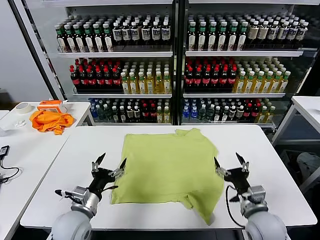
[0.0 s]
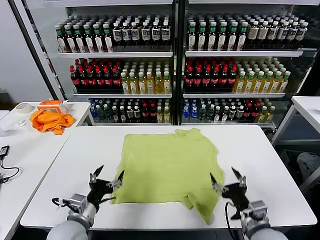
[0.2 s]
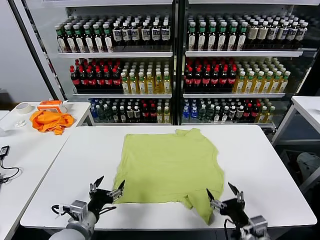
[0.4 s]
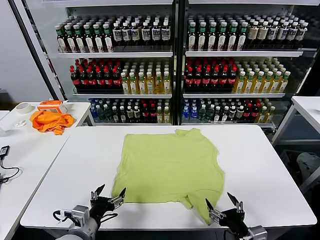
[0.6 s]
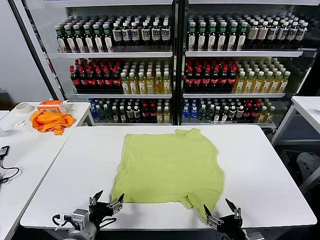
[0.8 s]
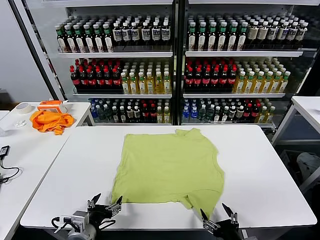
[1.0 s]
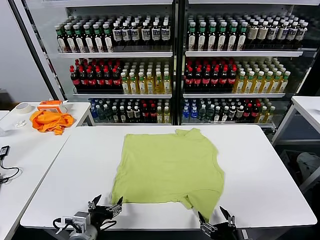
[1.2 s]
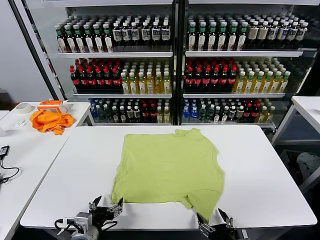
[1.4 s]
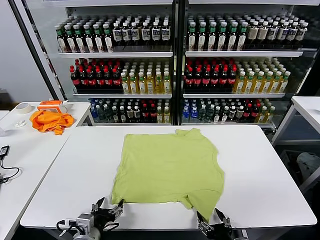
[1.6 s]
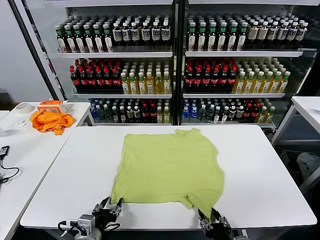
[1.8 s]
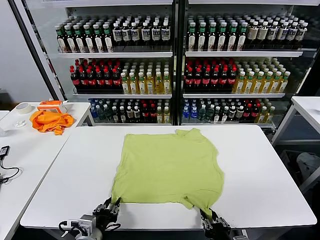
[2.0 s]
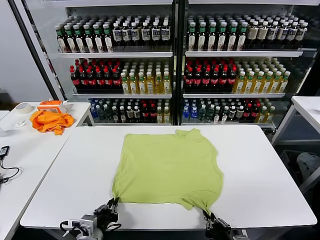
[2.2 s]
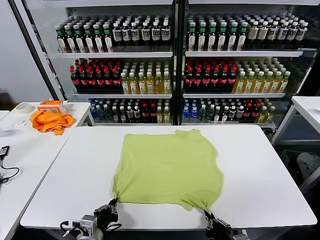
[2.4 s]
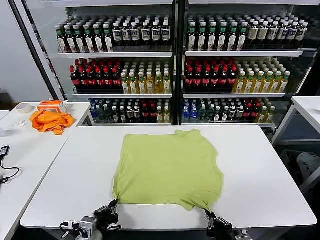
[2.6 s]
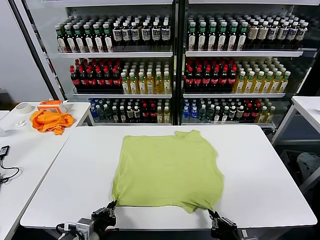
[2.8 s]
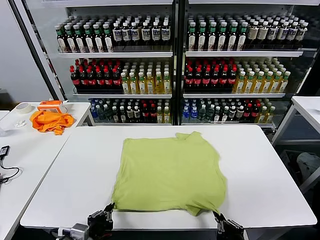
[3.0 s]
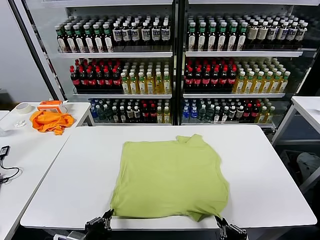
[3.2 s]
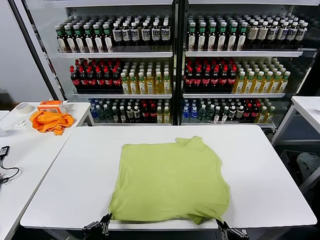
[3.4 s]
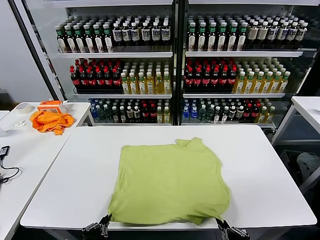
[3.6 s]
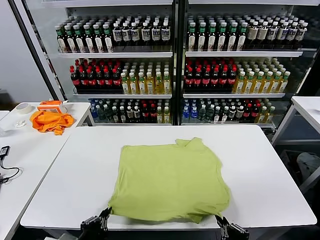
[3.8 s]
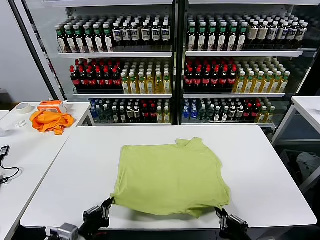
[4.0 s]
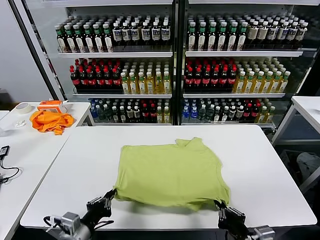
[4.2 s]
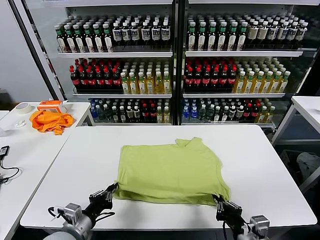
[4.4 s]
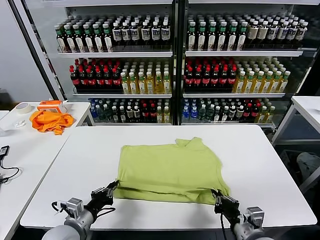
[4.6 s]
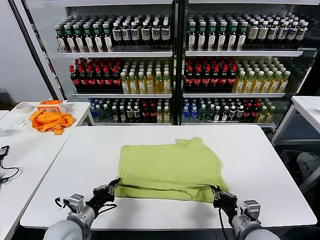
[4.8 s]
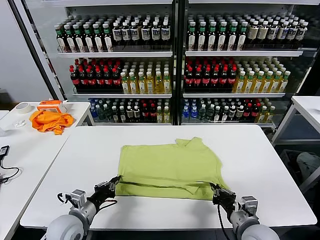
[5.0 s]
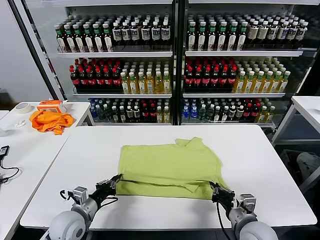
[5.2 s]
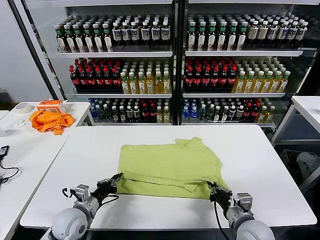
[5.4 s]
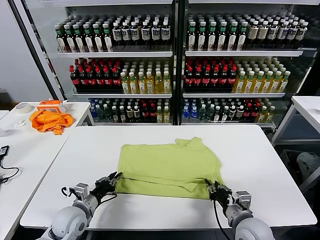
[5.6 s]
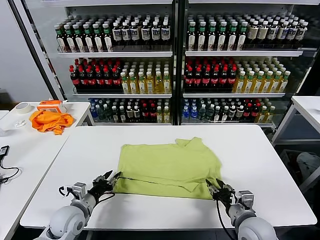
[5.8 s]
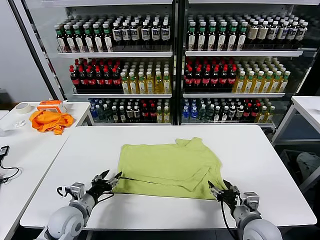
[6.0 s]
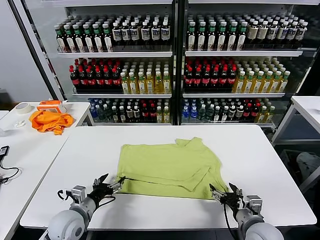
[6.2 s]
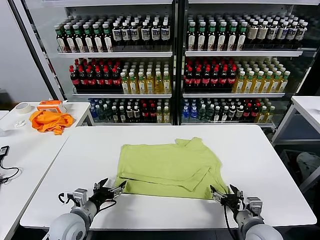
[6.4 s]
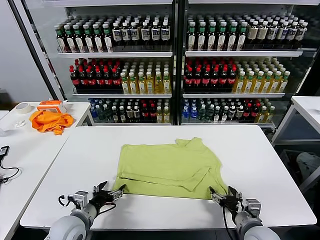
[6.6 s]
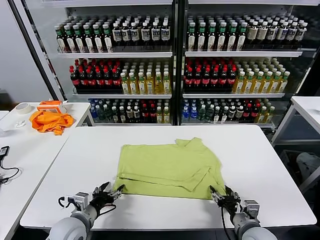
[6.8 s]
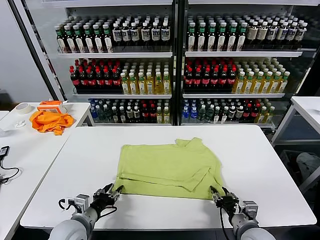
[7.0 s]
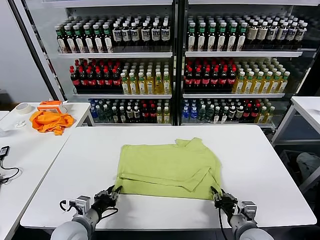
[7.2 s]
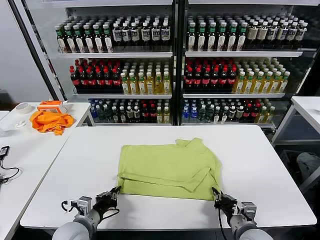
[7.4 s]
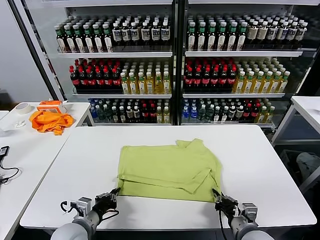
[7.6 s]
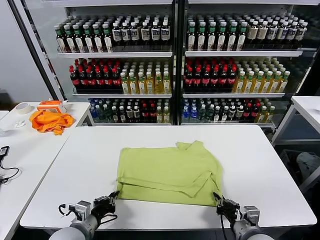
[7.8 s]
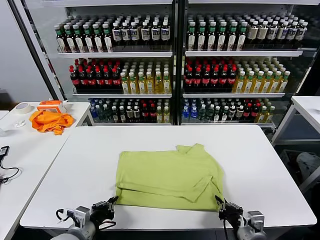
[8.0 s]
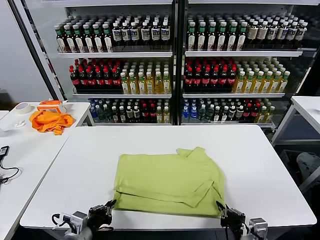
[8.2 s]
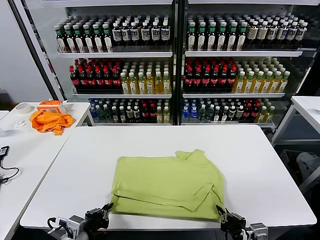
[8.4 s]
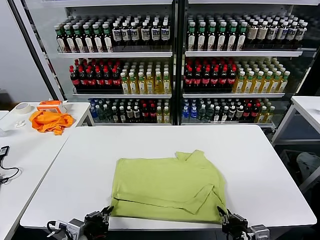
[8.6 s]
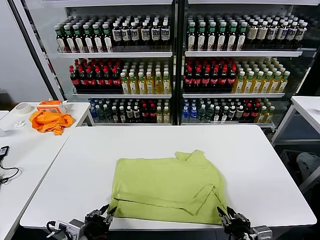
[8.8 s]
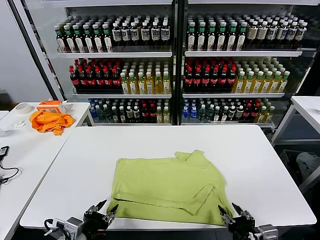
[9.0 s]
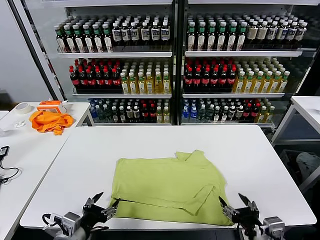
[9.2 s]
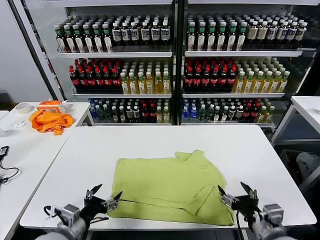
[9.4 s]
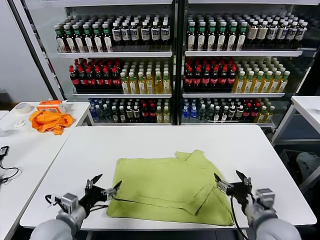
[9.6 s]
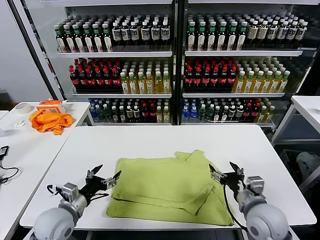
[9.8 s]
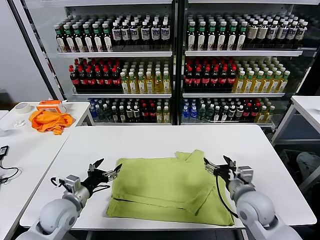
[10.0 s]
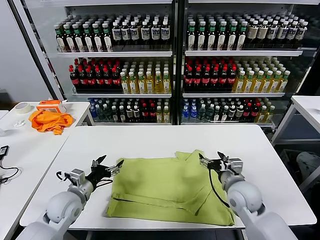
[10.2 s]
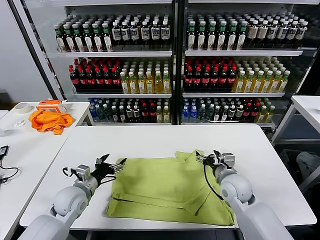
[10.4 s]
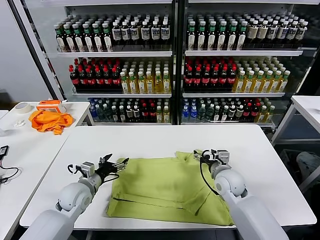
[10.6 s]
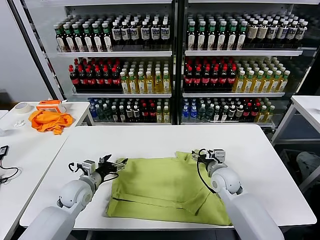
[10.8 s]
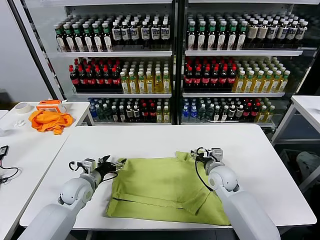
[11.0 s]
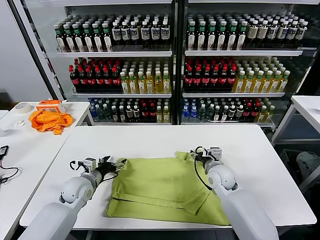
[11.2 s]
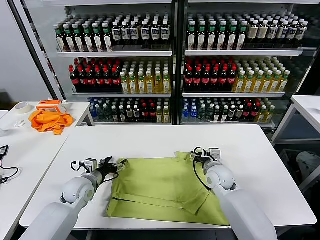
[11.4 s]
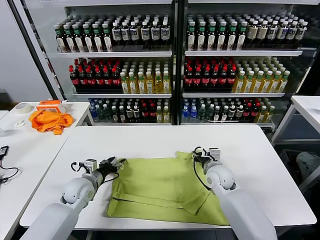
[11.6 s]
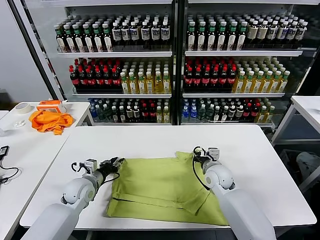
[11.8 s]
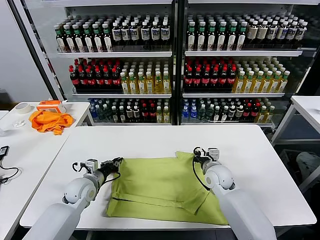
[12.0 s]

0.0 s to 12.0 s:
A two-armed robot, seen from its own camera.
Task of the whole recording: fold and organize the clothes.
Step, 0.0 to 2.4 s: use both grippers simultaneously to clamp the lower edge of the clothing fabric.
Step, 2.6 to 5.8 s: use both grippers to drag the lower edge of the fabric forward and fold it over the upper edge.
Step, 6.0 to 8.8 s: Drag the clothes downward with both gripper.
Step, 9.0 to 12.0 s: use both grippers simultaneously to clamp the upper edge of the clothing fabric.
1.6 to 3.0 s: The left gripper closes. The right gripper shifts some 5 cm upward, and closes up.
3.0 to 4.4 s: The grippers both shift forward by some 10 cm.
4.4 to 6.0 s: Both grippers travel together forward, approximately 5 cm. The left gripper opens its fingers. The right gripper opens its fingers.
6.0 to 7.6 s: The left gripper is displaced backward by about 5 cm, and closes. The right gripper closes its fingers.
7.6 to 9.0 s: The two grippers go about 10 cm backward and upward. The right gripper opens up. The left gripper opens its fingers.
9.0 to 10.4 s: Both grippers move forward, some 20 cm. The left gripper opens up.
10.4 to 12.0 s: The left gripper closes its fingers, while the right gripper ends up roughly 5 cm from where it was, and closes up.

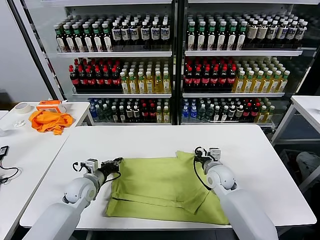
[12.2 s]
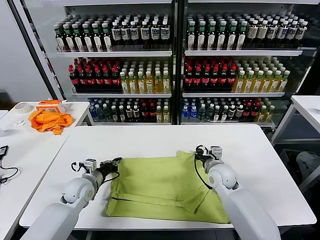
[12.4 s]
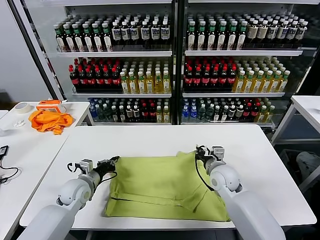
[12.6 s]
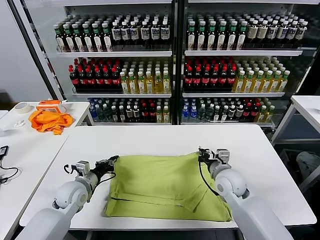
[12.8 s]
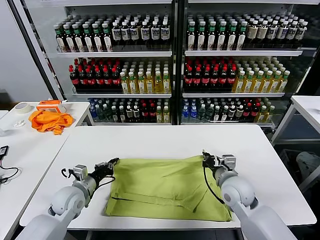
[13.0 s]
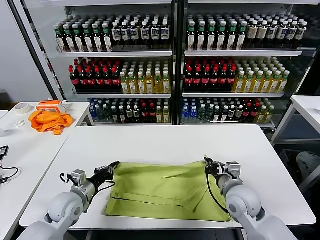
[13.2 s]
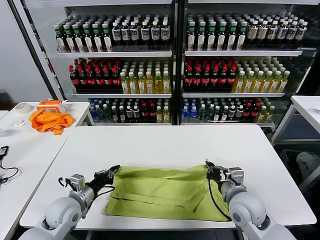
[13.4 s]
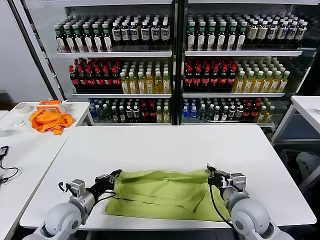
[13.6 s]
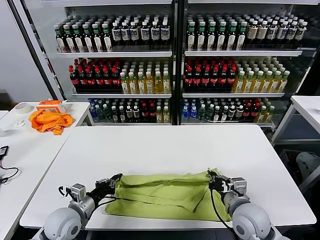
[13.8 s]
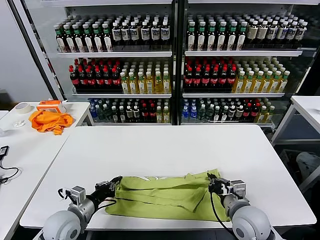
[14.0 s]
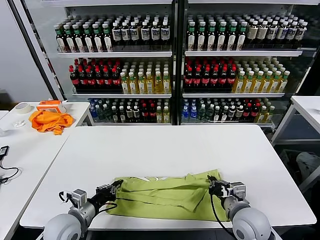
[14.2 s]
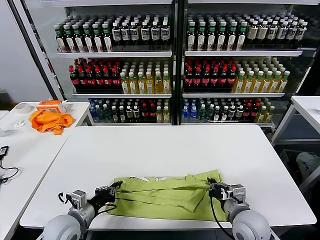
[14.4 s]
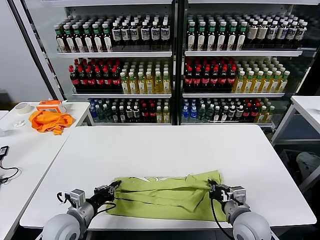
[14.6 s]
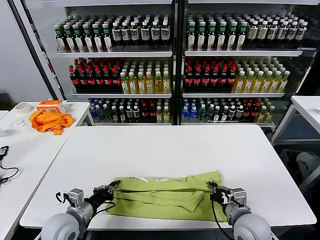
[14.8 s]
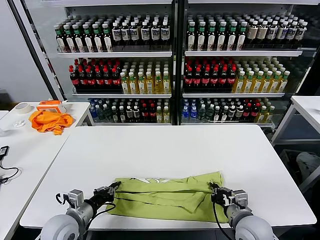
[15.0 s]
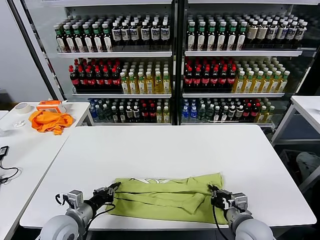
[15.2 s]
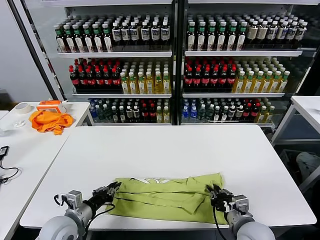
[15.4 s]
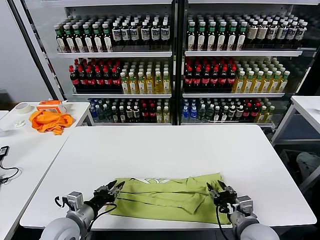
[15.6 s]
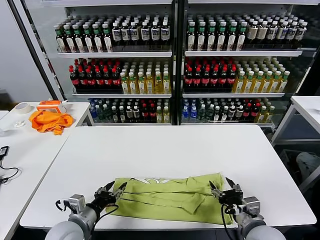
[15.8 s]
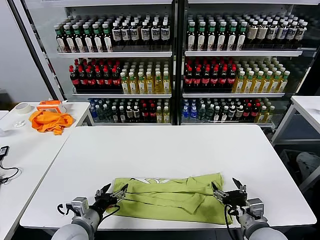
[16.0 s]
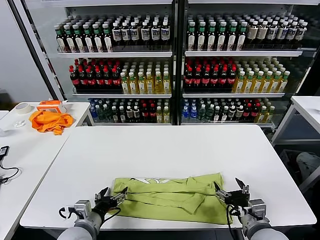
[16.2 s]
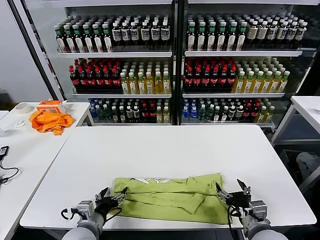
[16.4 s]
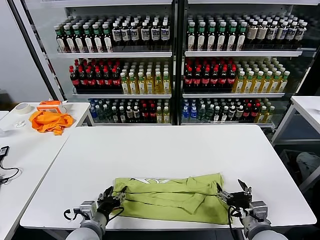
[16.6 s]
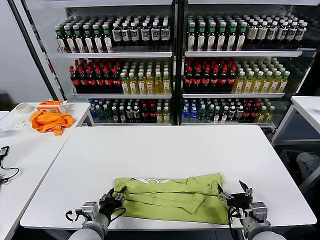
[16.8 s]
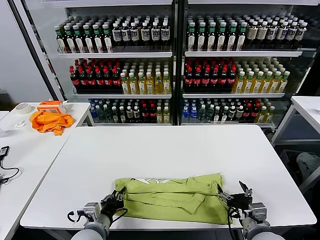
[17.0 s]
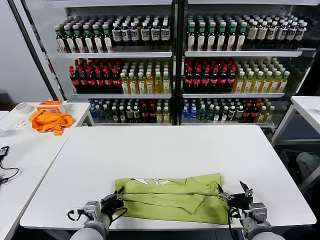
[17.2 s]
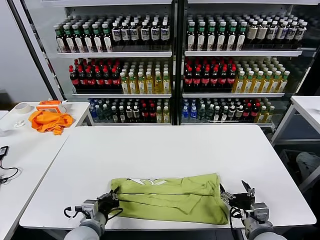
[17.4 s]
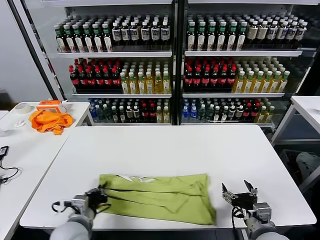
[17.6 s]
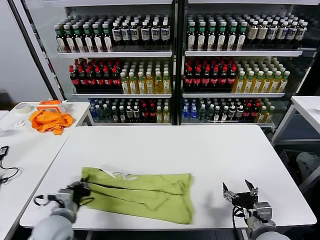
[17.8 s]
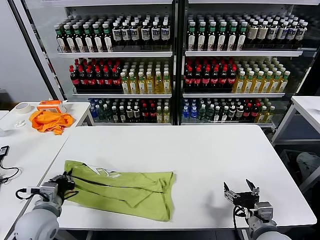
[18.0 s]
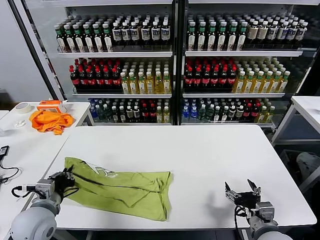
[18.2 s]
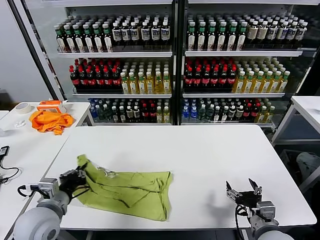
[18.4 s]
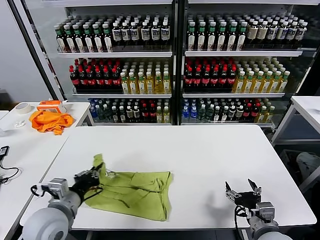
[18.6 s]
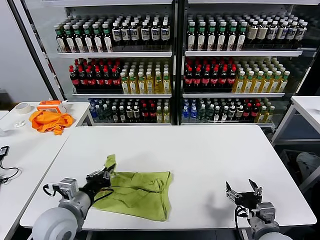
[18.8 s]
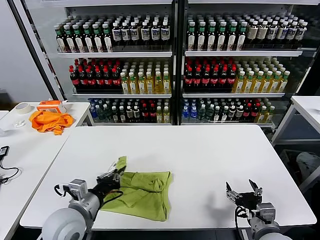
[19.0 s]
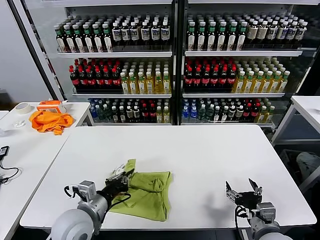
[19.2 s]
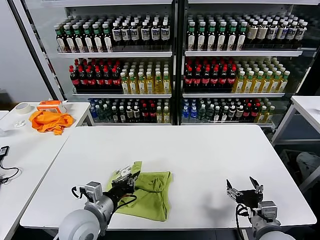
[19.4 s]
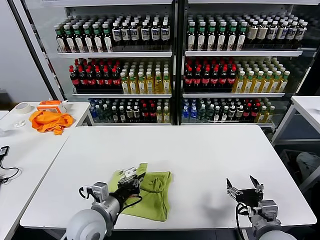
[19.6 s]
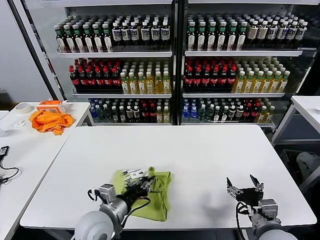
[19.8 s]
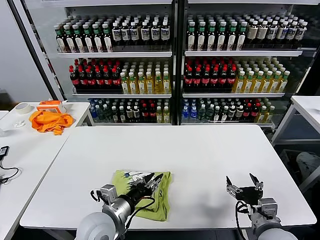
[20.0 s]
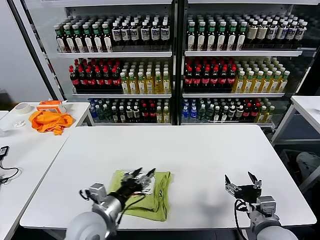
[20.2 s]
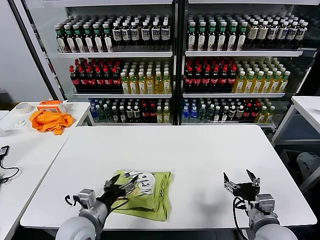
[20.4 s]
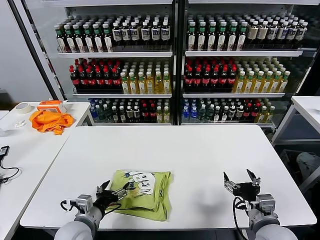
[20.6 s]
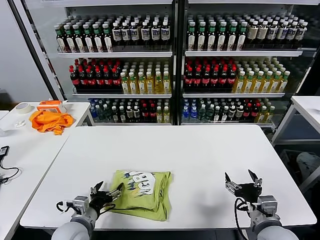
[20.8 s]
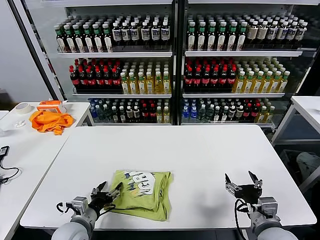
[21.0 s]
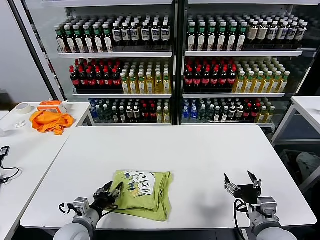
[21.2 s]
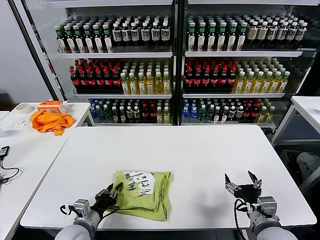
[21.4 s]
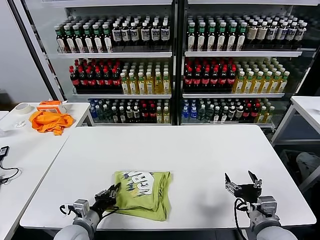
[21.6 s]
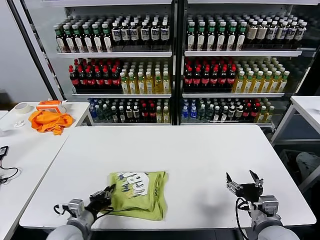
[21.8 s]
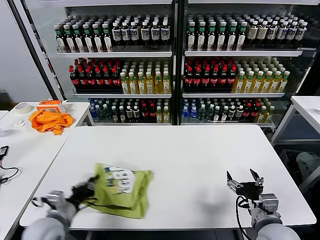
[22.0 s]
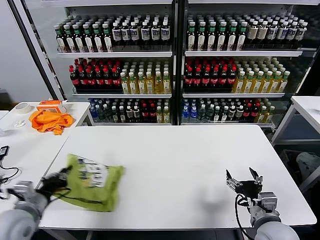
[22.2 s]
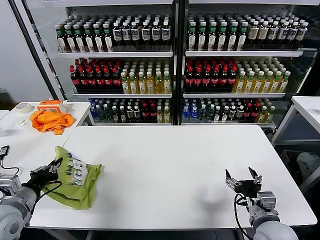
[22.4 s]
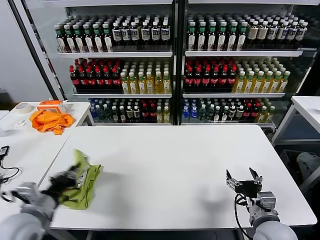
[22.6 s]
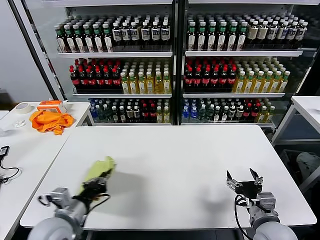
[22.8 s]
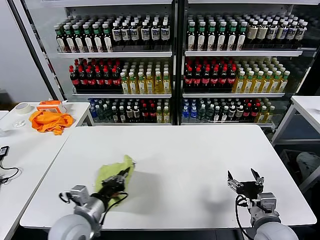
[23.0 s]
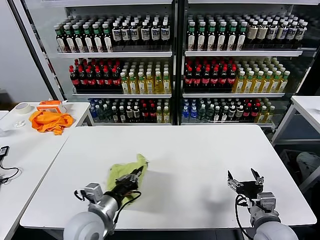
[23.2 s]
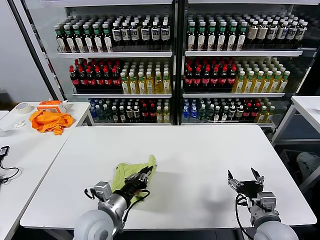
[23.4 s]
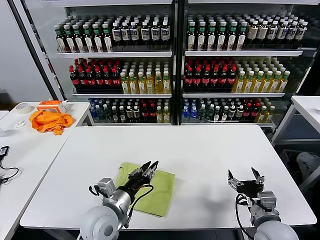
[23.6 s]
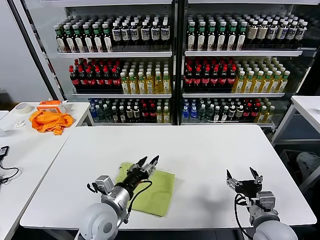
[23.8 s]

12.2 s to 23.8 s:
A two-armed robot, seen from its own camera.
Task of the whole recording: fold and organize the clothes.
Step, 12.2 to 15.6 s: use both grippers to drag the upper edge of the fabric backward and fold it over the lower edge.
Step, 16.0 to 17.0 s: use the left gripper to clamp the left edge of the fabric.
Step, 17.2 to 20.0 s: use the left gripper to drag the left edge of the fabric to the left and folds it over the right edge.
Step, 20.2 to 23.4 s: Flip the folded clothes over with left gripper.
12.2 to 13.6 s: Both grippers travel together backward, approximately 15 cm.
13.6 to 15.0 s: The grippers move only a little.
15.0 to 16.6 s: The left gripper travels to the right by approximately 5 cm, and opens its fingers. The right gripper opens its fingers.
16.6 to 18.0 s: The left gripper is displaced to the left and upward by about 15 cm, and closes.
18.0 to 19.4 s: The left gripper moves to the right, about 15 cm.
19.4 to 21.0 s: The left gripper heads downward and to the left, covering roughly 10 cm, and opens.
21.0 to 22.4 s: The left gripper goes approximately 20 cm upward and to the left, and closes up.
22.4 to 23.8 s: The left gripper travels to the right by about 25 cm, and opens its fingers.
